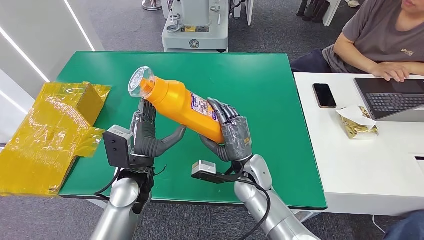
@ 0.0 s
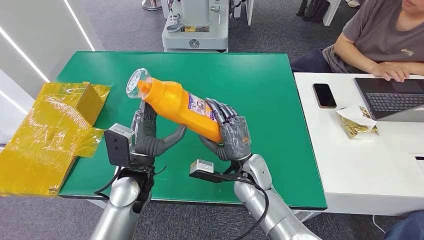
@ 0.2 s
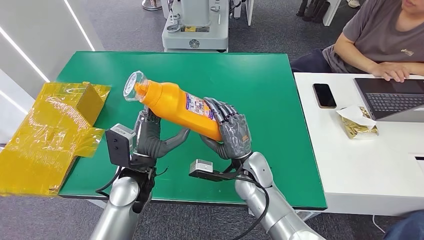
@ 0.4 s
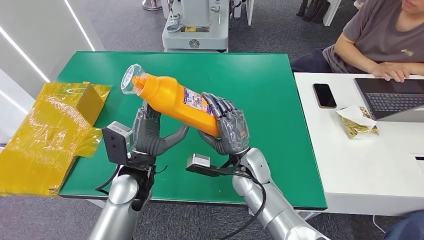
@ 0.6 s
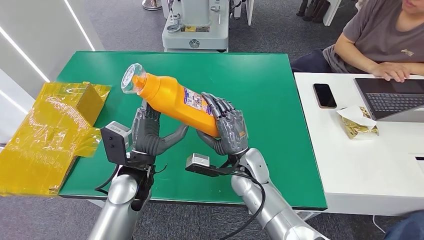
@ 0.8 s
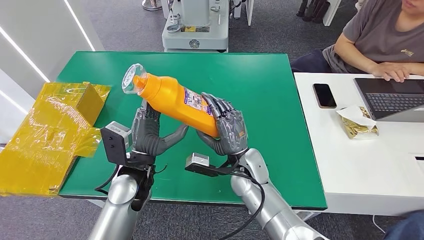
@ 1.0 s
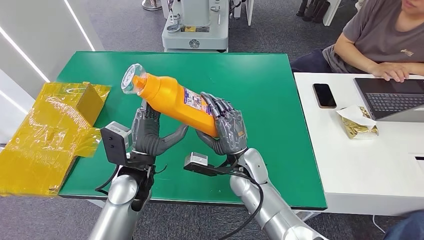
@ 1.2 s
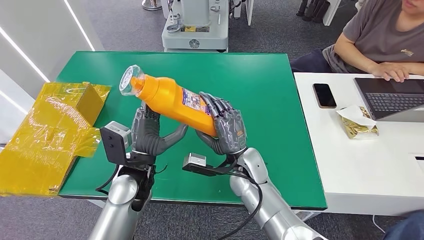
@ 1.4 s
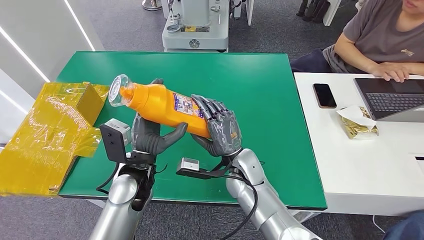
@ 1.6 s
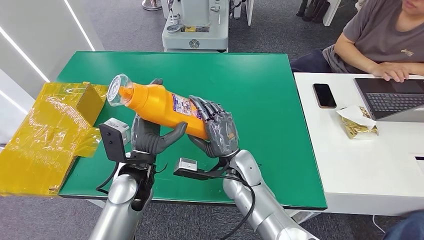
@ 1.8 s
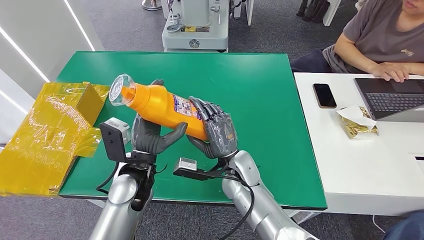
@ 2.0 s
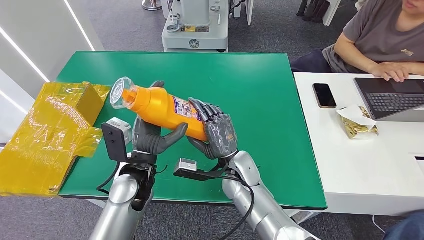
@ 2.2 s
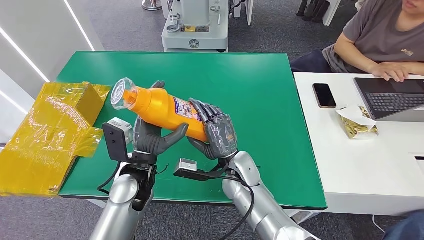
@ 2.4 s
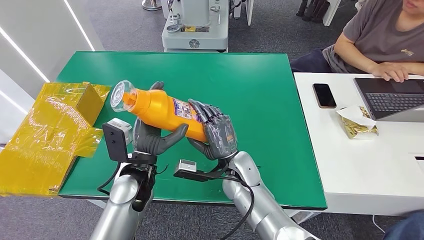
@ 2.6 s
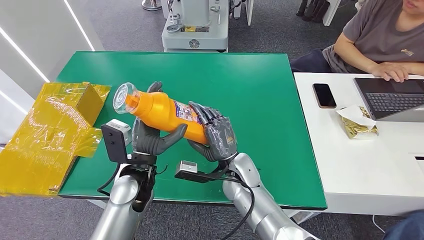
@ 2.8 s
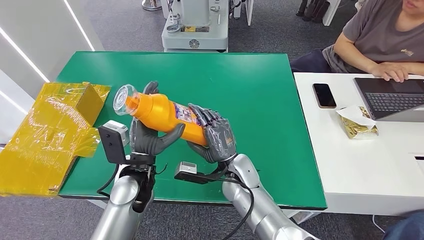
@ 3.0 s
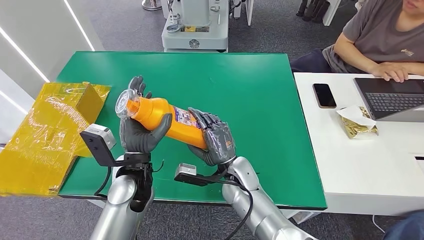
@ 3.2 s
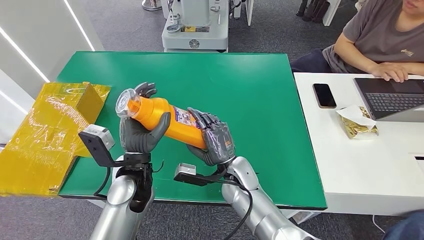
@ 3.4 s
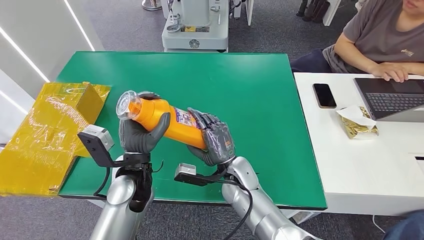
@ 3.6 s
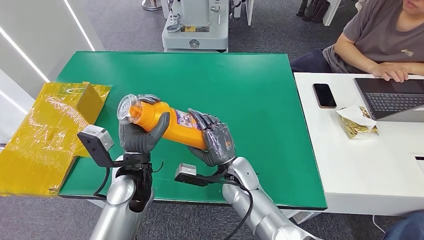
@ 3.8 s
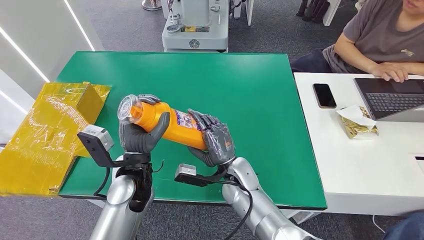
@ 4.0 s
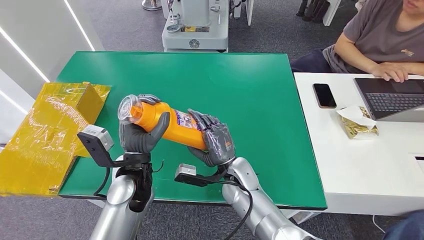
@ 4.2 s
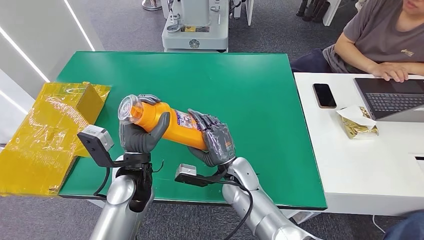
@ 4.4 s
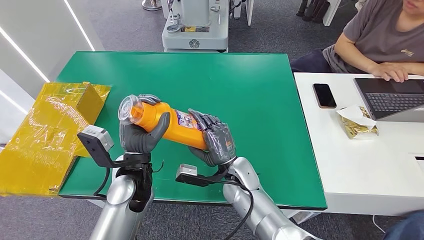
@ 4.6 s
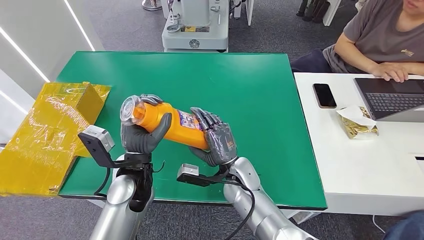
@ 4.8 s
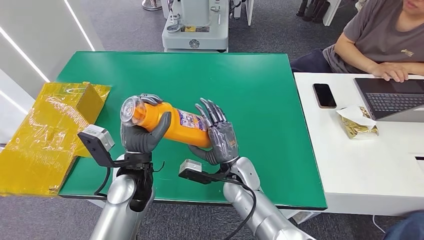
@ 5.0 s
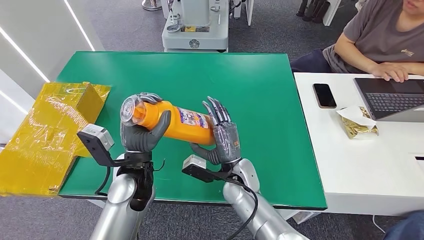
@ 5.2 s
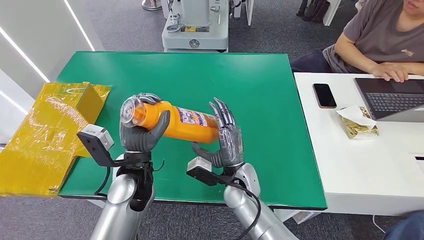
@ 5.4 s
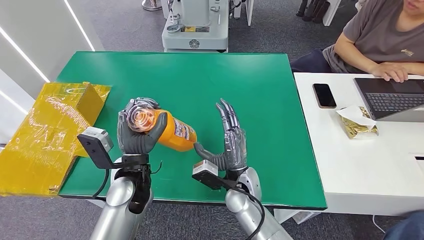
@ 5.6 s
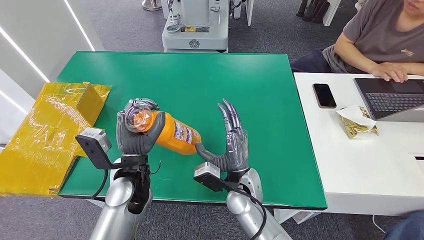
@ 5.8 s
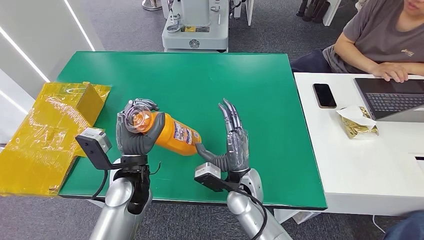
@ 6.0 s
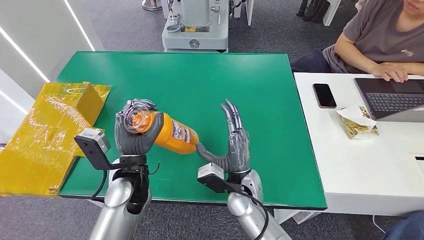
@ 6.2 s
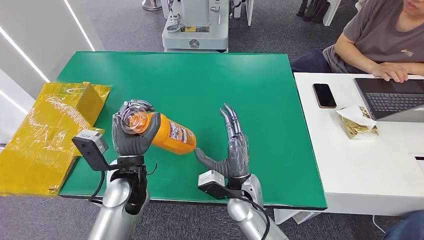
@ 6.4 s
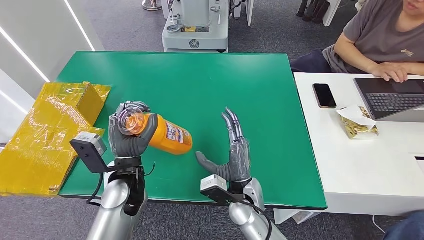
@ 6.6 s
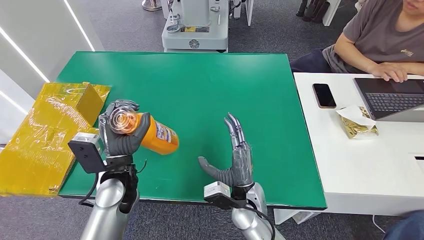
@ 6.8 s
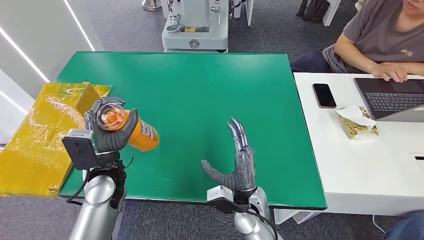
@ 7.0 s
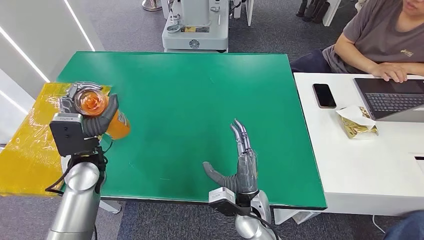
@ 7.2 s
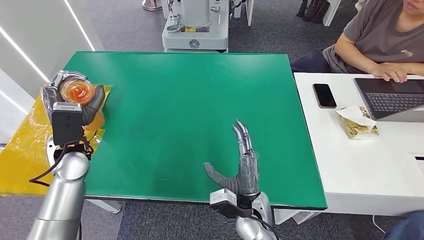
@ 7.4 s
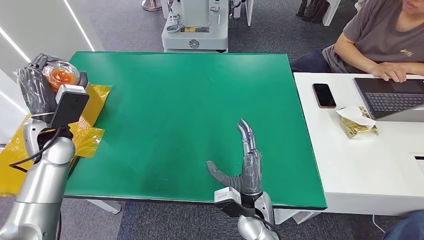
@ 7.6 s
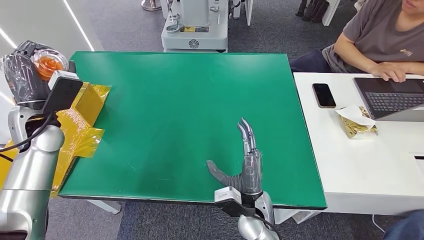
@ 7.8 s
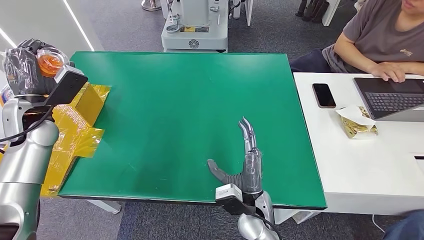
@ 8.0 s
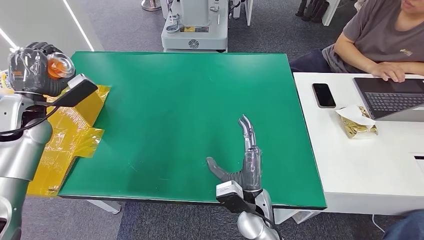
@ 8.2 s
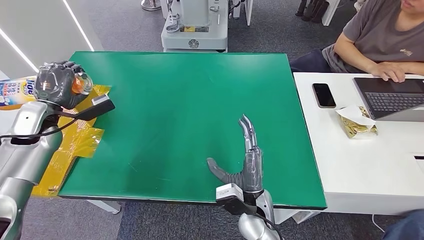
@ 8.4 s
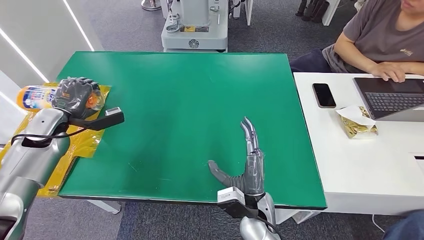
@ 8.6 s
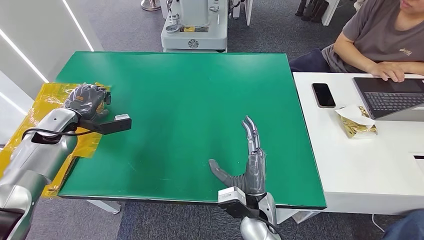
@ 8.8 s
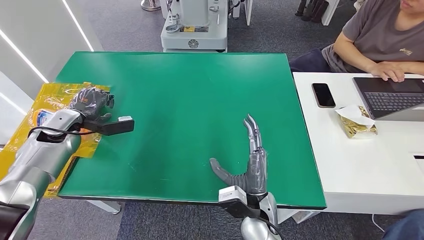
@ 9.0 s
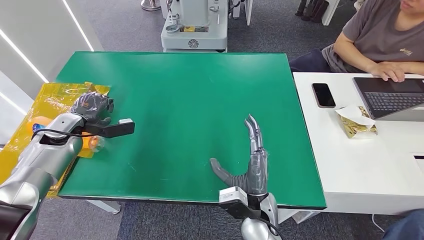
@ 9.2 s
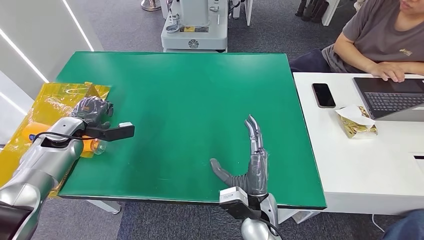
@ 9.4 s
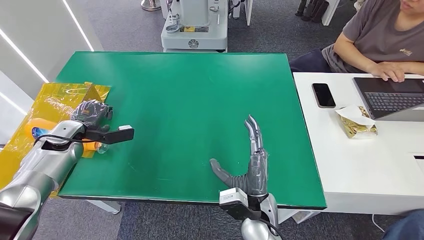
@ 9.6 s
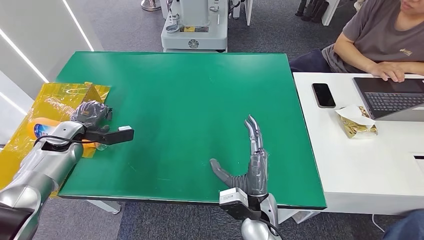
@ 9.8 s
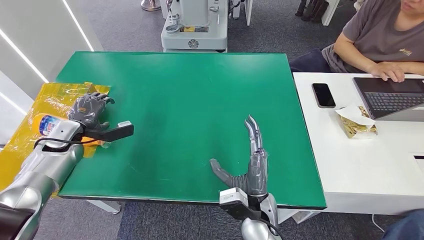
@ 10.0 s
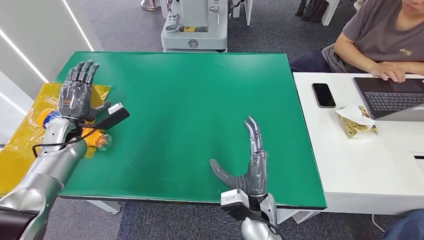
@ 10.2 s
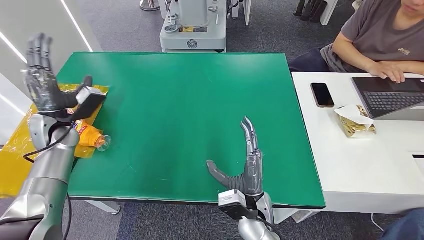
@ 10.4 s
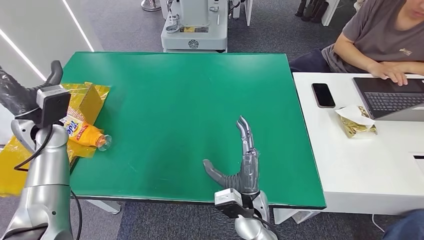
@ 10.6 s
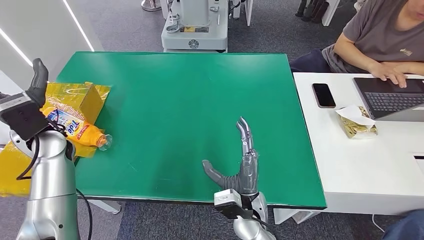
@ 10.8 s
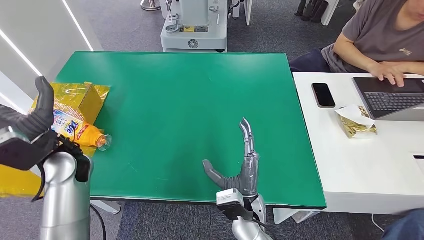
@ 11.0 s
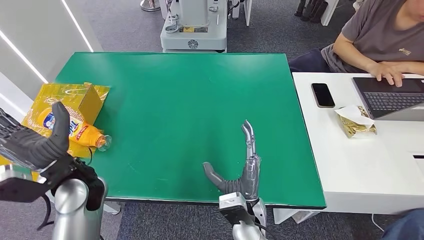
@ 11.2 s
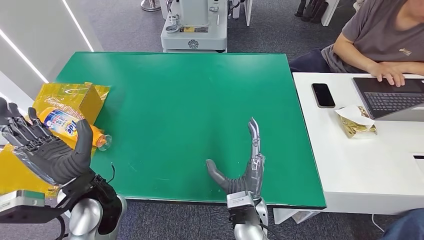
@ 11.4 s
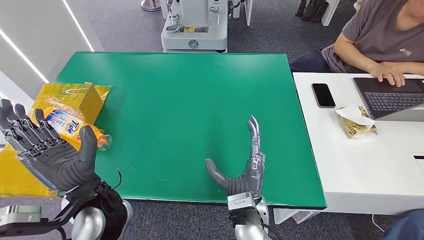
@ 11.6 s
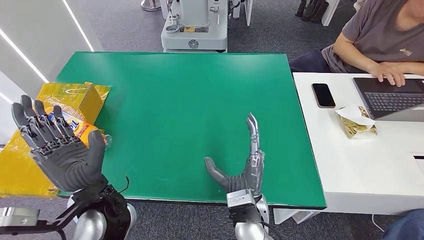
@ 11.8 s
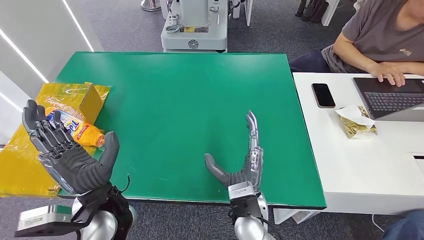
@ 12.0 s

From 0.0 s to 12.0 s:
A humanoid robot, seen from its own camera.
Step, from 0.0 s to 12.0 s: Turn the bottle to the front side.
From 0.0 s to 4.4 s: The hands move only a little.
From 6.0 s to 7.6 s: The left hand shifts approximately 20 cm to the left and forward. Meanwhile the right hand moves backward, about 5 cm.
From 7.6 s to 9.0 s: The left hand travels to the left by about 5 cm.
From 10.4 s to 12.0 s: The left hand is displaced to the right and backward by about 30 cm.
